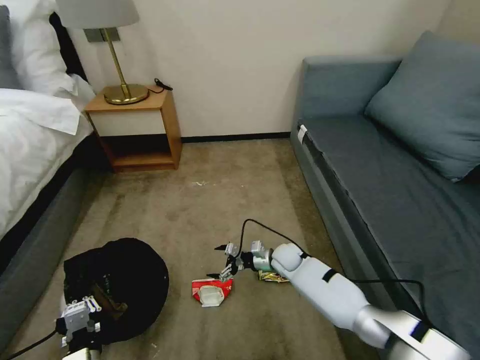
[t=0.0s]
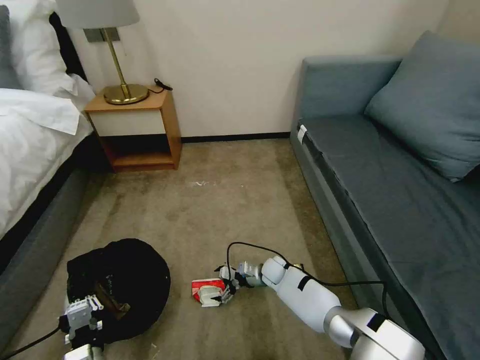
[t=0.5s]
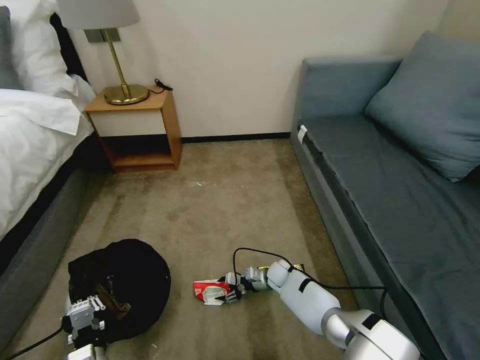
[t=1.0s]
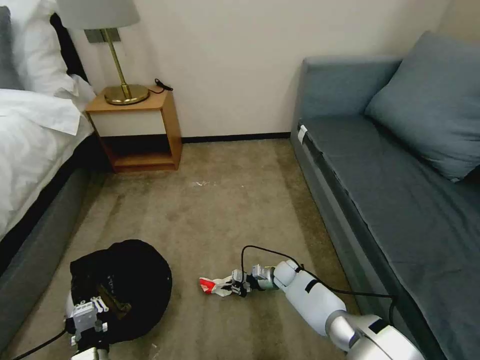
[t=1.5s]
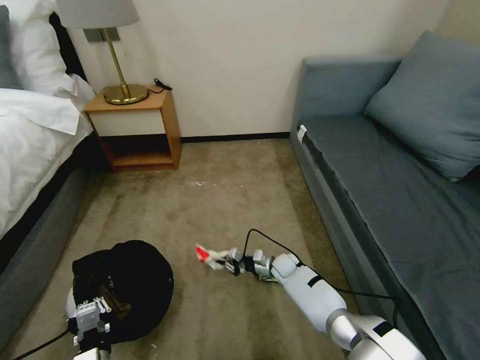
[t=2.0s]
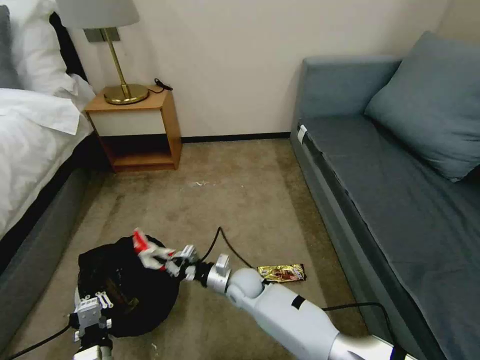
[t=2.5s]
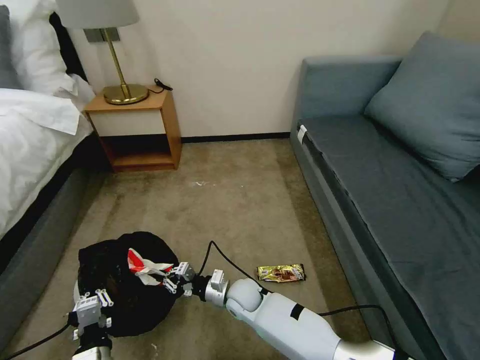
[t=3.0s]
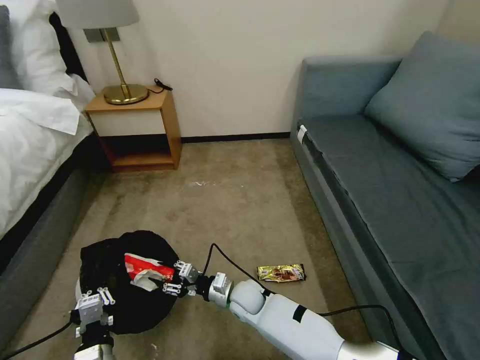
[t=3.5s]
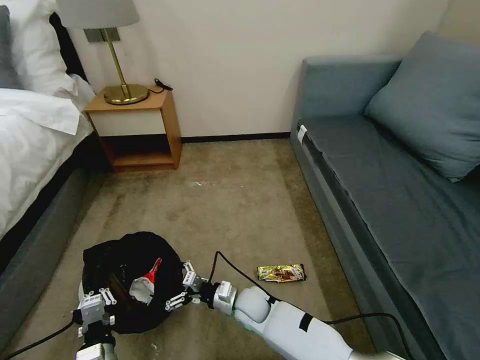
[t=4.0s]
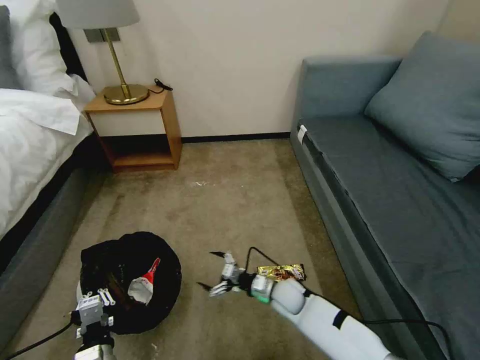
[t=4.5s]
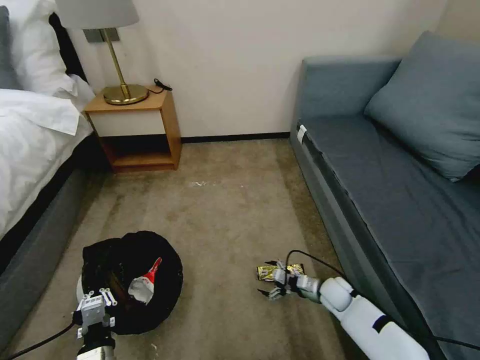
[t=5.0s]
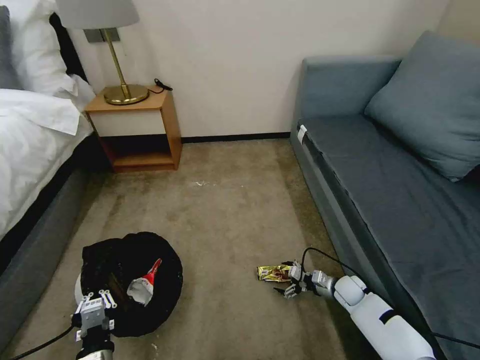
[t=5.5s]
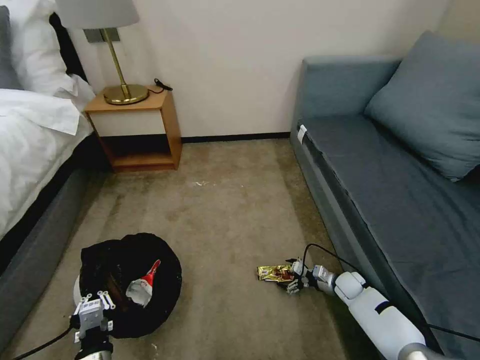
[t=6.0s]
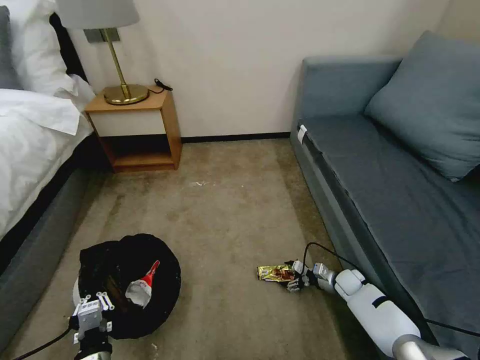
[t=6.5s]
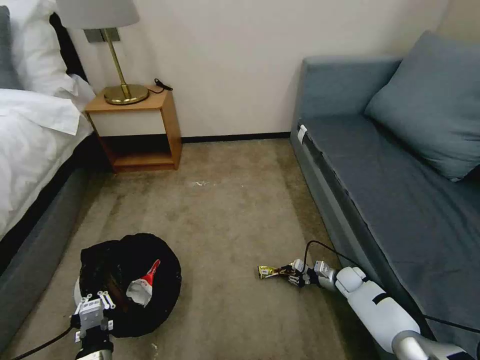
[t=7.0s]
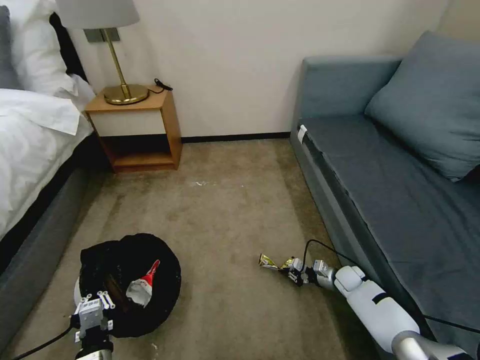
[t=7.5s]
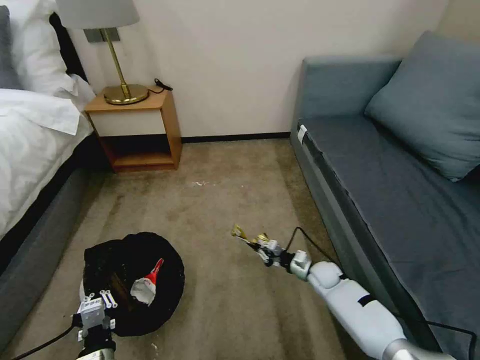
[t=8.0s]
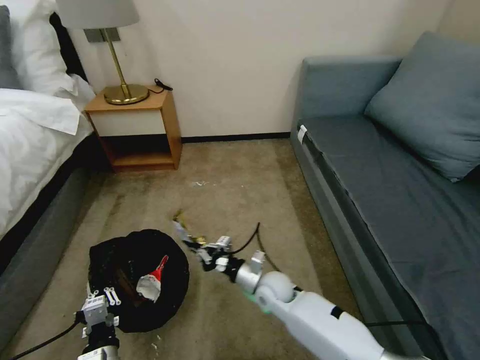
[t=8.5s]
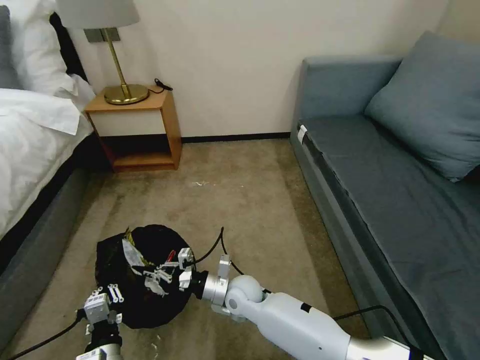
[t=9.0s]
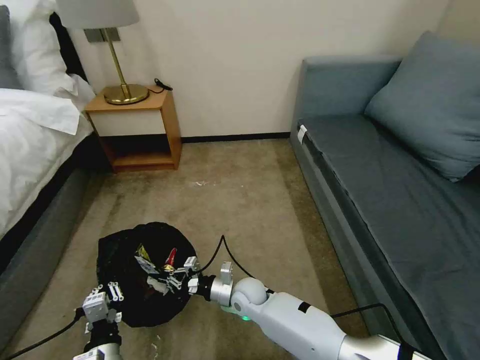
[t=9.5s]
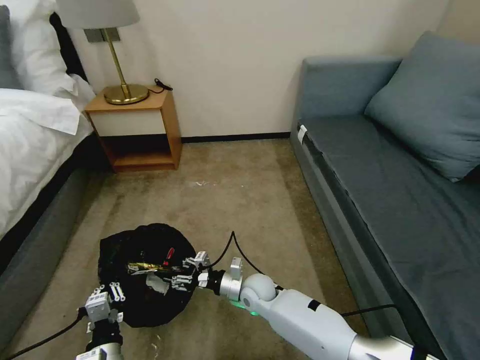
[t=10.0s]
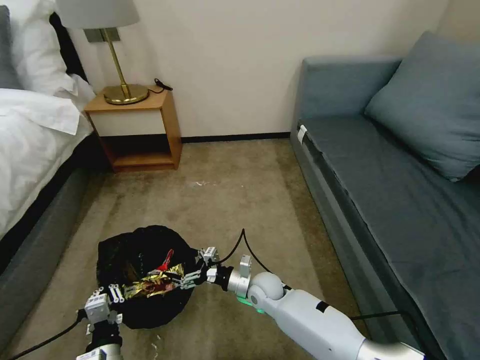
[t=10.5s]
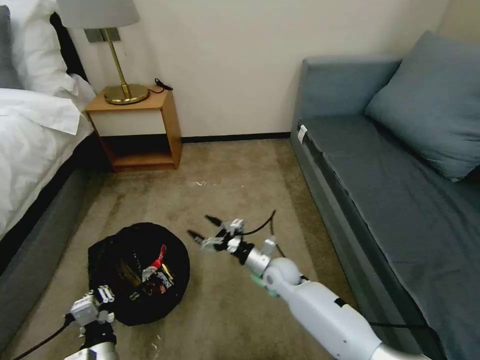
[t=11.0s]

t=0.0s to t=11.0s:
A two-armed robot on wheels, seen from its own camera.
Task of the whole recording: Pick up the trash bin, then pick up the garbage on the floor and place it into the trash bin.
t=0.0s to t=2.0s: The right gripper travels downward by about 5 cm, and closes its fingers.
t=2.0s to t=3.5s: The right gripper goes some 20 cm to the left, backward and upward, and opens its fingers.
t=3.5s to t=5.5s: The right gripper goes about 35 cm to the right, and opens.
t=5.5s to t=7.5s: The right gripper closes up.
t=7.5s to t=9.0s: The right gripper moves to the left, roughly 35 cm.
t=9.0s to t=11.0s: The right gripper shifts some 10 cm to the right and forward, and opens up.

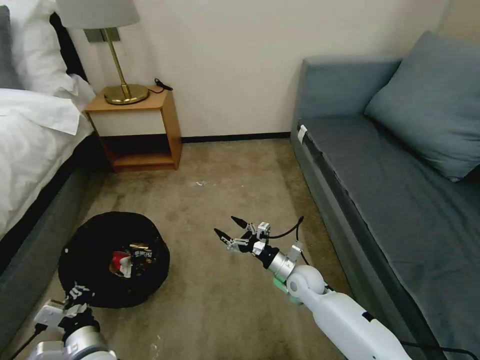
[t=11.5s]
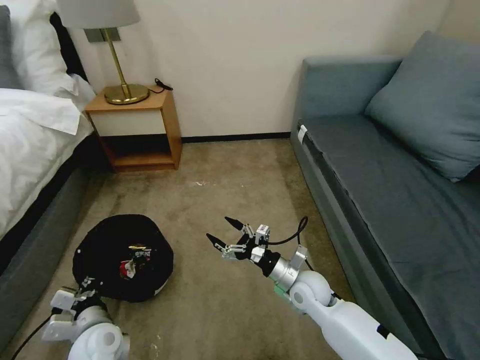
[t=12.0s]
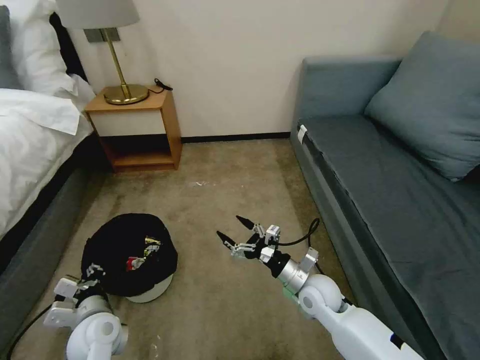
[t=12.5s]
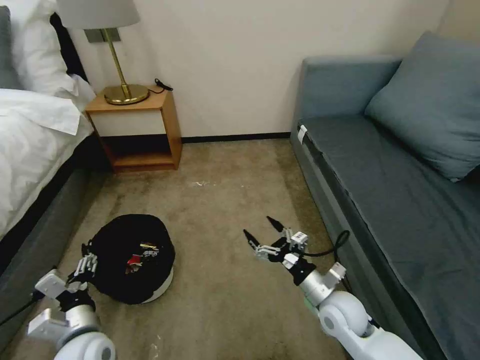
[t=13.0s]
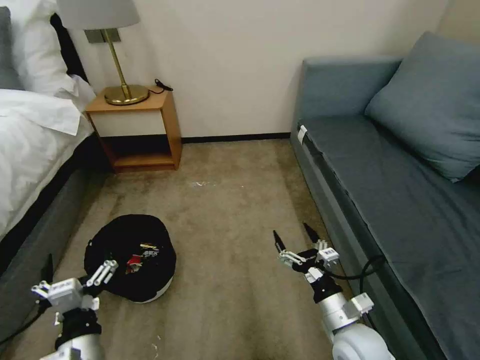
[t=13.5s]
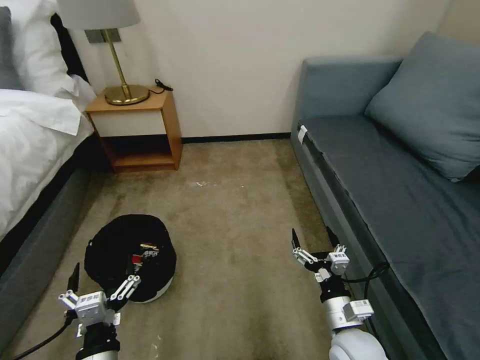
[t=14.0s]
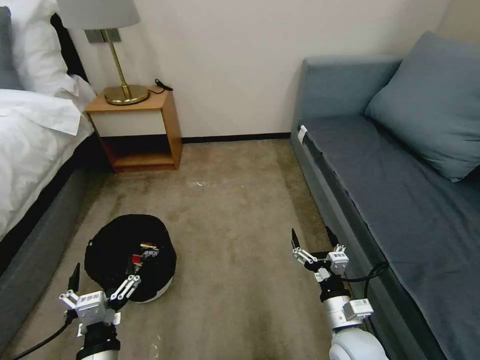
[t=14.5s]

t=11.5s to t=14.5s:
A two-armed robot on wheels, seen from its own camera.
Task of the whole recording: Pick up the trash bin, then pick up the garbage on the floor and place it into the trash bin.
t=11.5s to t=13.0s: The right gripper is displaced backward, upward and to the right by approximately 10 cm; the left gripper opens its fingers.
t=13.0s to t=14.5s: The right gripper travels backward by about 10 cm. Meanwhile the left gripper goes roughly 10 cm backward and to the right.
